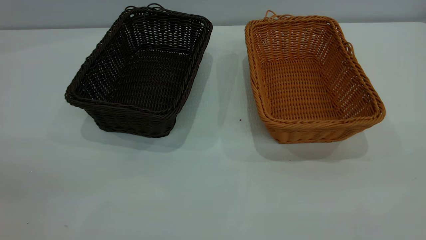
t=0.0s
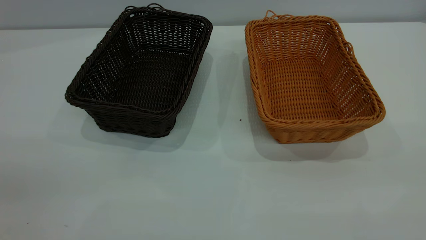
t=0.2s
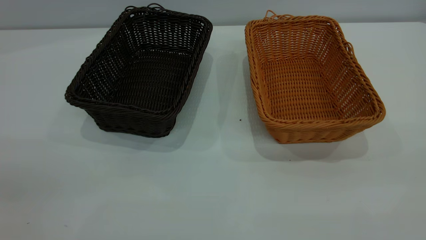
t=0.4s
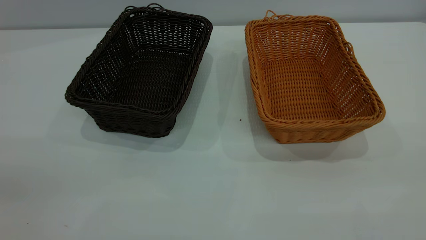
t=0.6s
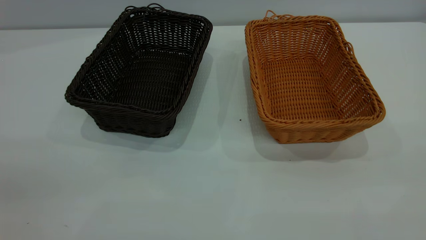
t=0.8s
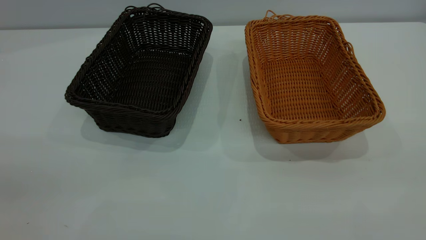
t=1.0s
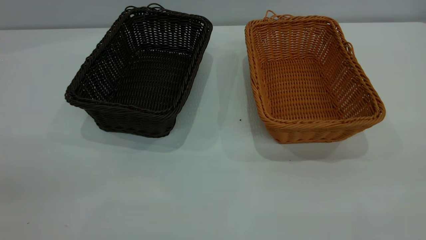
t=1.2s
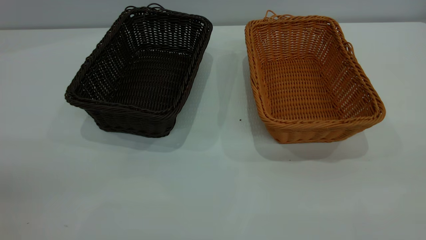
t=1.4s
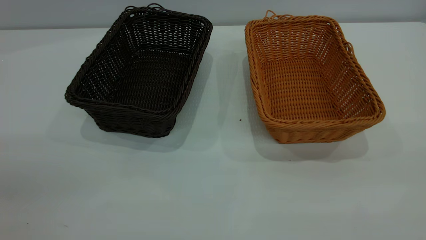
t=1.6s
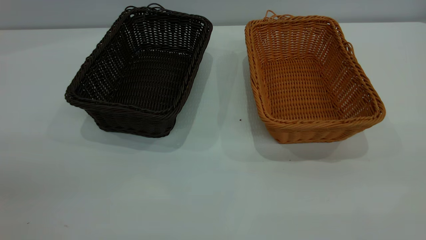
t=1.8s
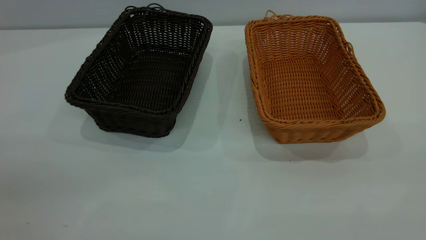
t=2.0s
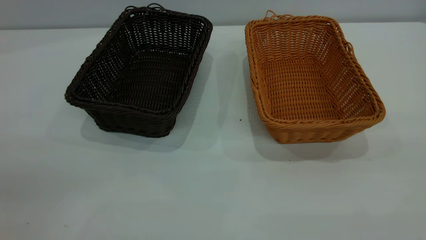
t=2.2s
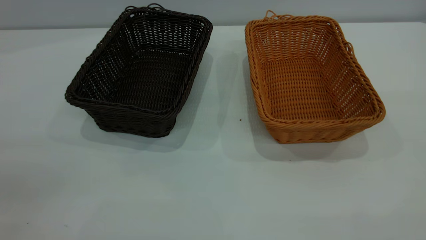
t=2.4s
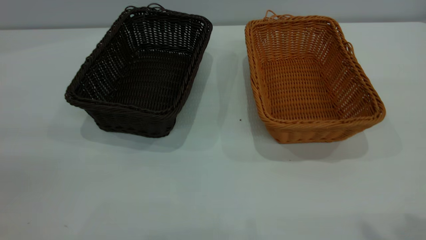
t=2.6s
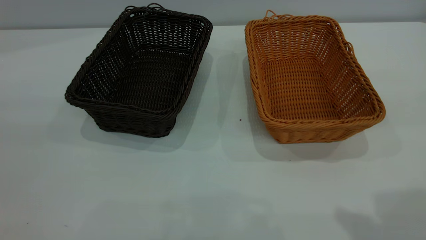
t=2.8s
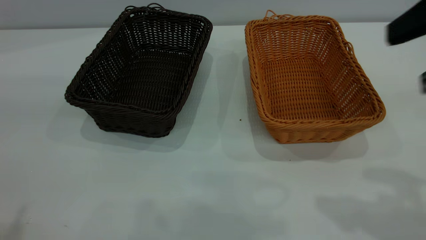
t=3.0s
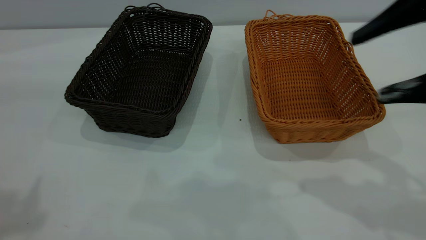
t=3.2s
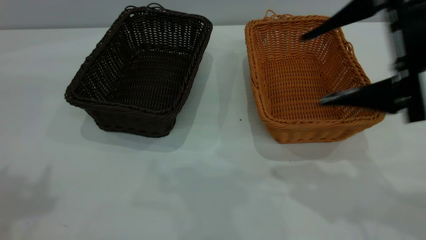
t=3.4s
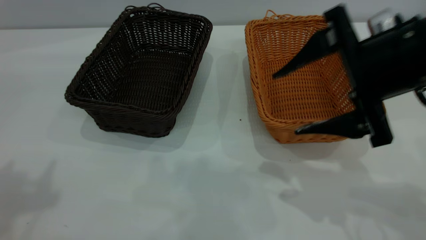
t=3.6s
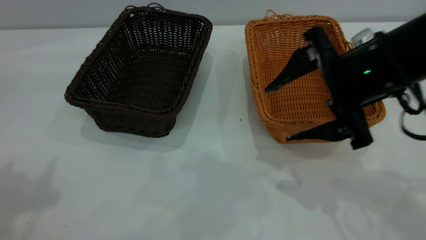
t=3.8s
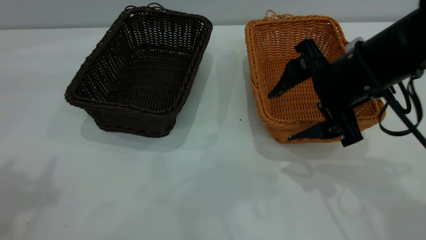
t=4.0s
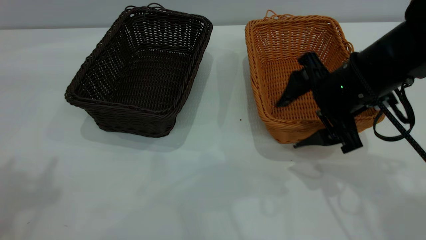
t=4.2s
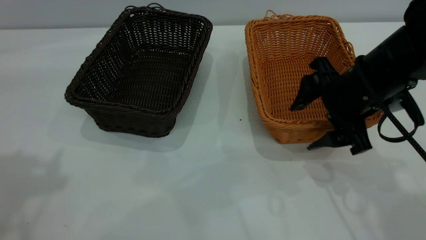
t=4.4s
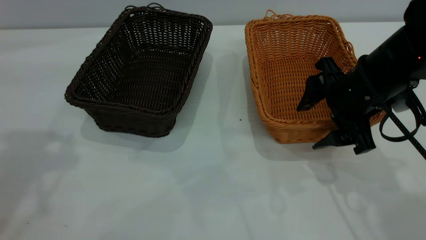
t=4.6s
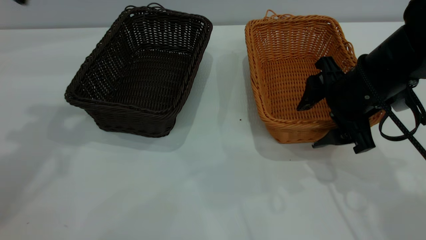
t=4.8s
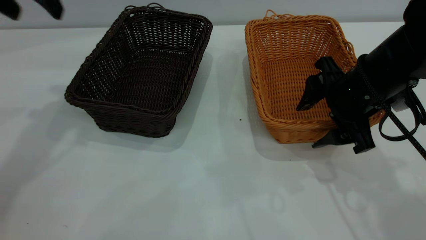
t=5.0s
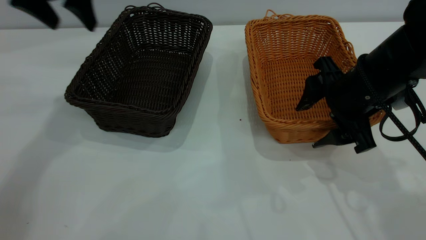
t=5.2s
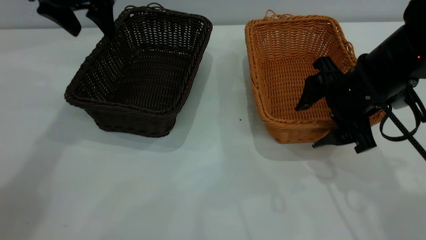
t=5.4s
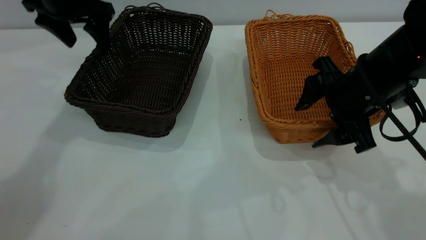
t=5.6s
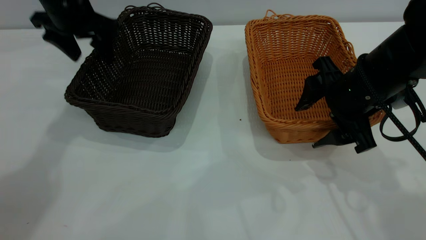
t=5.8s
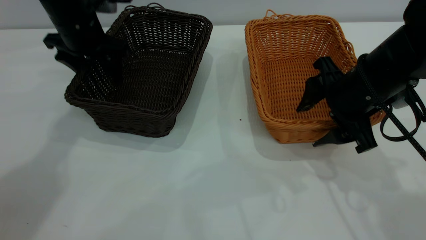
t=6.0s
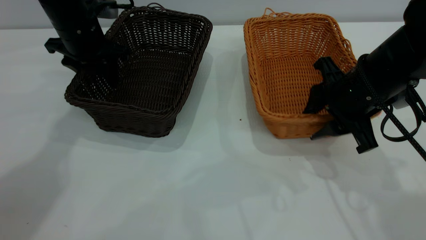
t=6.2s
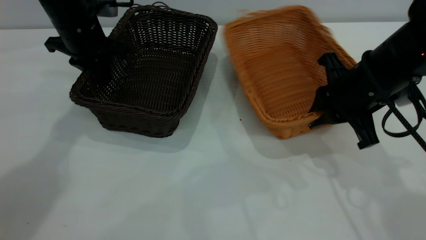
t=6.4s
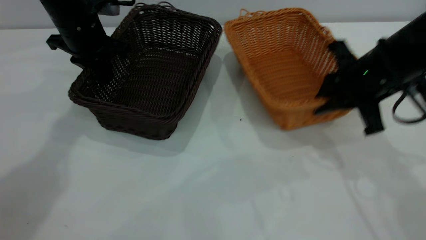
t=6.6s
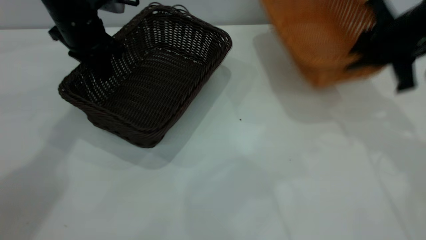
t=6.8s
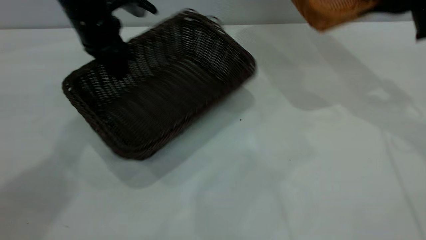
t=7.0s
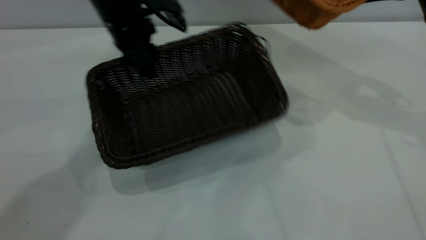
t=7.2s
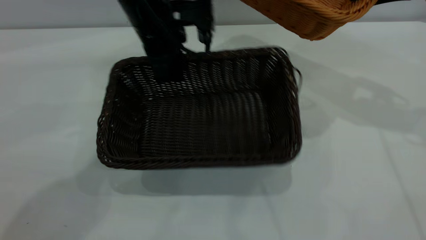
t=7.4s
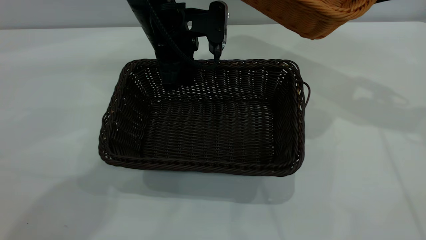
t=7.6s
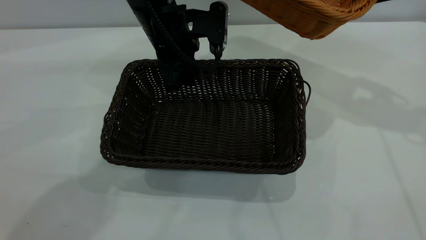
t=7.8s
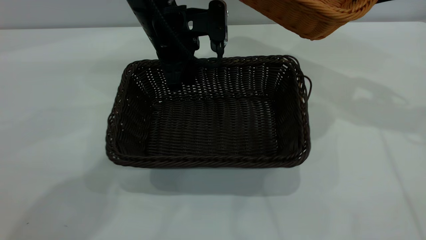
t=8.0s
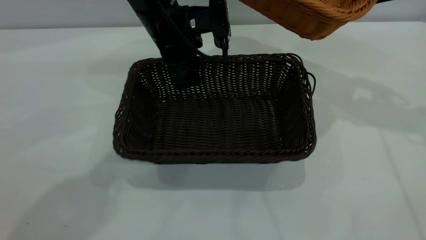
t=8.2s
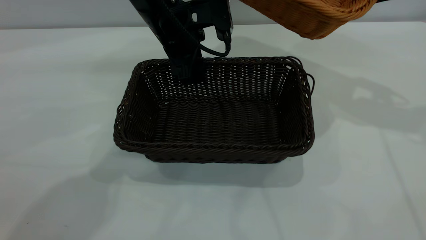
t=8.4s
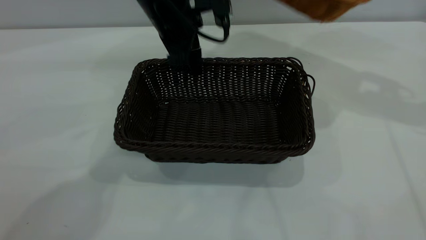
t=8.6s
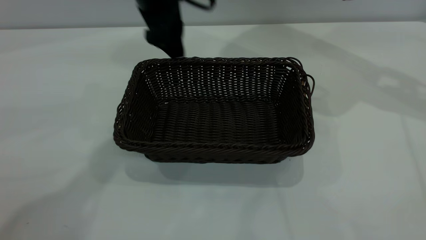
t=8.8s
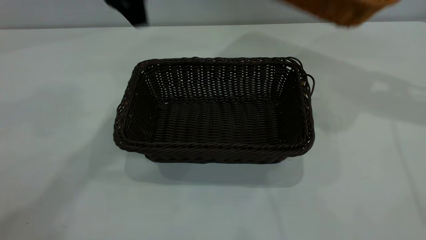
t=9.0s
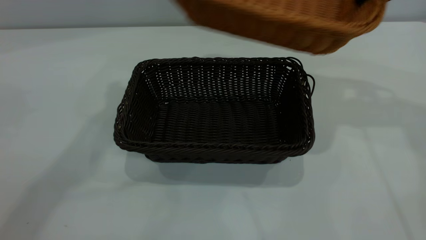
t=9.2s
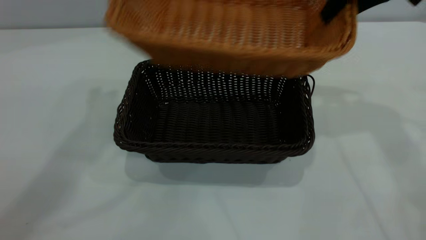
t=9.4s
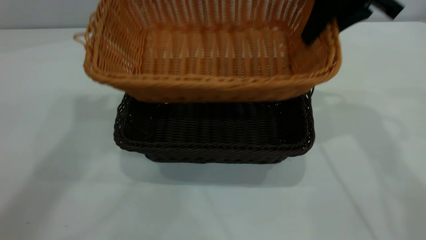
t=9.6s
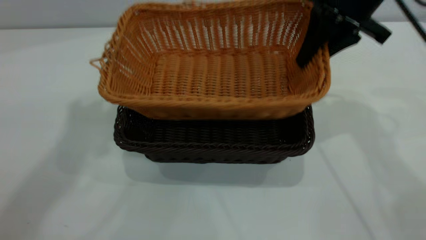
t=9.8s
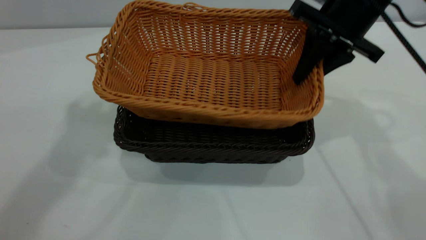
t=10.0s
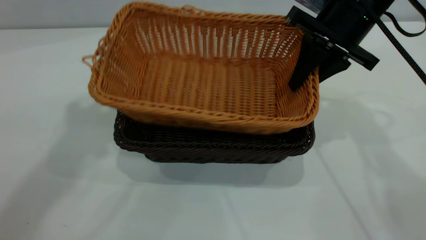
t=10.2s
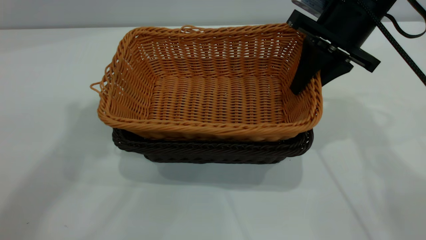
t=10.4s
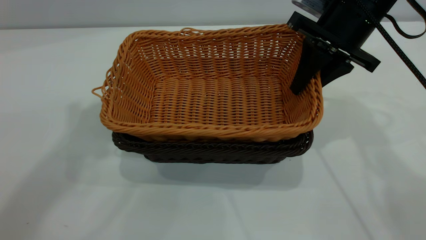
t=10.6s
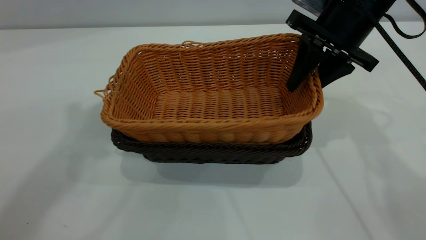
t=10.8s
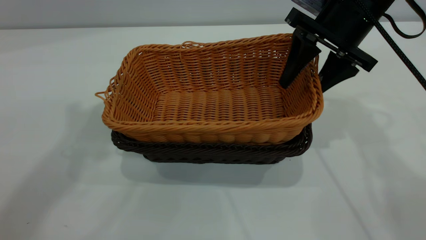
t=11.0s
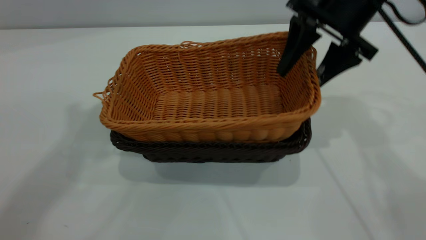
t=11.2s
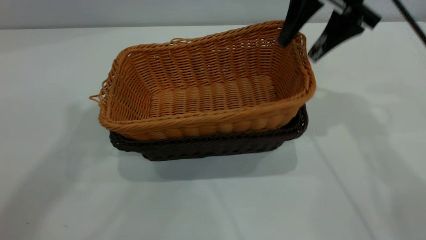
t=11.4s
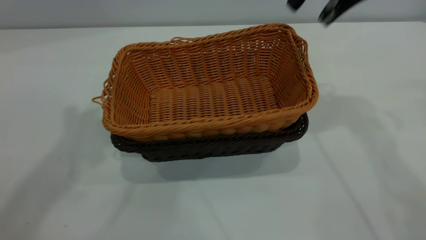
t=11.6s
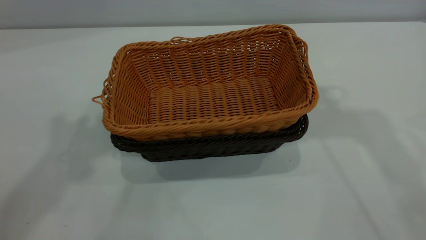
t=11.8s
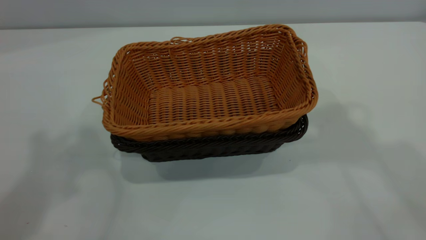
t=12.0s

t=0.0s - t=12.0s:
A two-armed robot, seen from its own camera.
Task of the whole recording: the left gripper grasp the black basket and place it in the center of the table, the right gripper grasp the brown basket and place it inside the black one.
Step, t=0.0s - t=6.8s: Pick up the light basket with the right gripper.
Step, t=7.0s - t=8.8s: Move the dark basket to the center of view.
Step, t=9.0s - t=11.4s: Place the light basket on the dark basket.
t=0.0s - t=1.6s: Both grippers stay put.
t=1.6s - t=3.0s: The right gripper shifts about 20 cm forward.
t=3.0s - t=4.4s: The left gripper travels forward by roughly 10 cm. The right gripper is displaced downward and forward by approximately 20 cm.
t=4.4s - t=6.0s: The left gripper travels forward and downward by some 30 cm.
t=6.0s - t=7.6s: The right gripper moves upward, to the right and forward, some 20 cm, and closes; the left gripper travels to the right by approximately 15 cm, and closes its fingers.
t=7.6s - t=9.0s: The left gripper moves upward and to the left, some 15 cm, and opens its fingers.
t=9.0s - t=10.4s: The left gripper travels upward and backward by about 20 cm, and closes up, while the right gripper heads to the left and downward, covering some 15 cm.
t=10.4s - t=12.0s: The left gripper travels backward by approximately 5 cm, while the right gripper moves upward, approximately 30 cm, and opens up.
